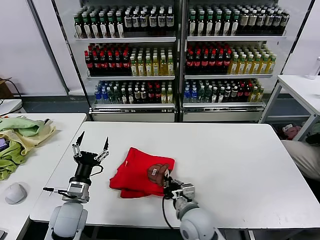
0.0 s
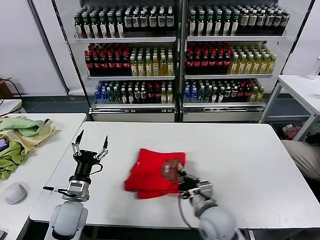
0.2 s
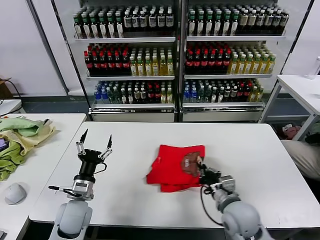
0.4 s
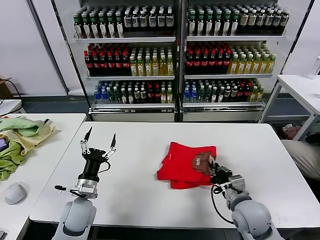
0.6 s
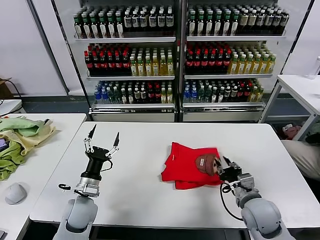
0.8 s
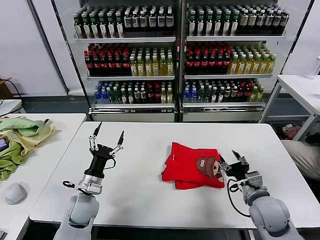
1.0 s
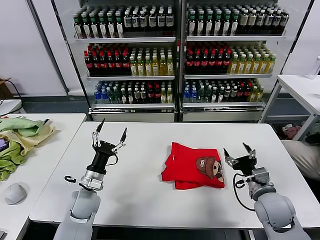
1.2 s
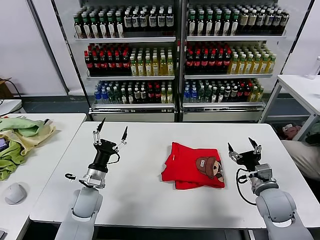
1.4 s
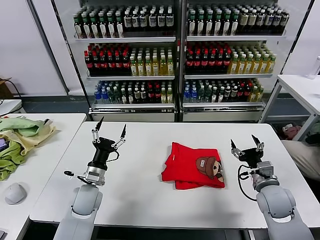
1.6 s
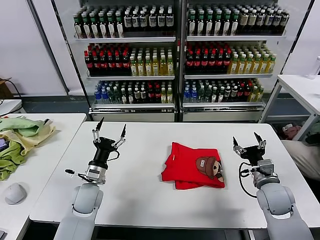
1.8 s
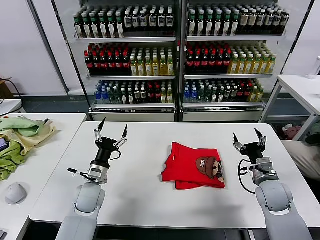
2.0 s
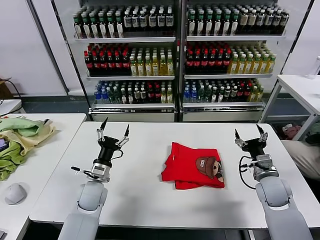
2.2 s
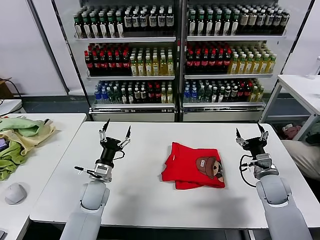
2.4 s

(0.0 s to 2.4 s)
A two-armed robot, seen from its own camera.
Task of the whole recording: fold and organize the clothes.
0.0 s - 1.2 s: The left gripper shifts some 5 cm forward. The right gripper shifts about 20 cm to the right, and opens.
1.2 s - 2.4 s: The right gripper shifts some 5 cm forward.

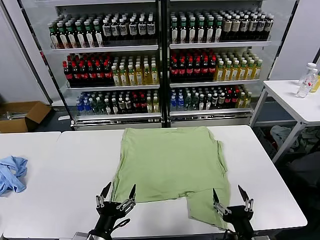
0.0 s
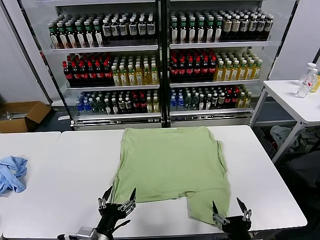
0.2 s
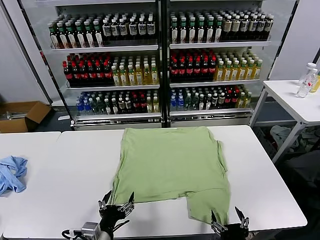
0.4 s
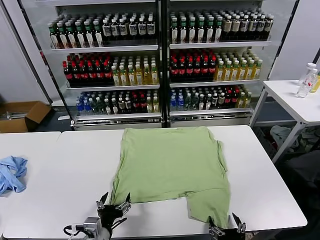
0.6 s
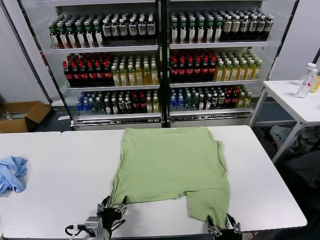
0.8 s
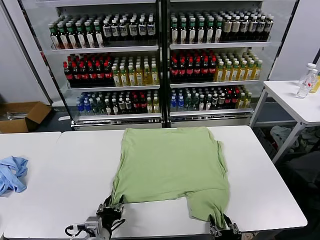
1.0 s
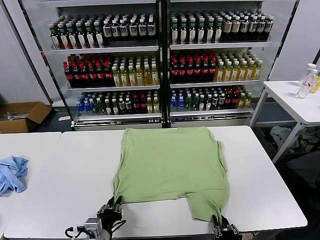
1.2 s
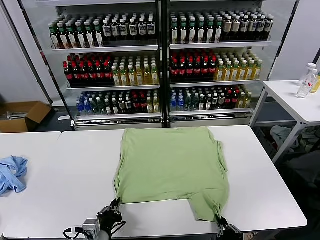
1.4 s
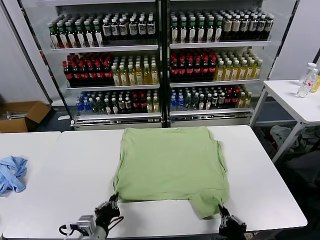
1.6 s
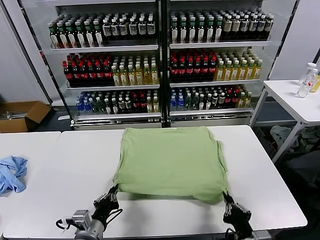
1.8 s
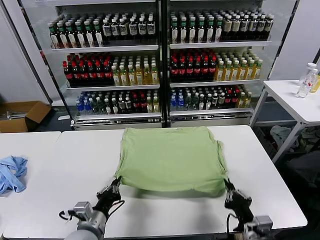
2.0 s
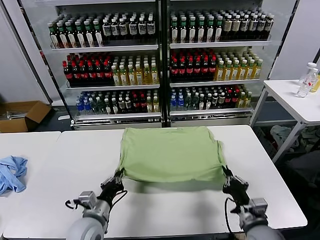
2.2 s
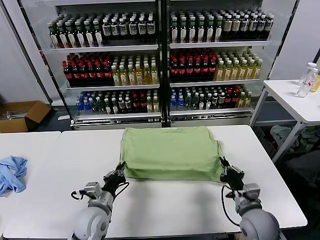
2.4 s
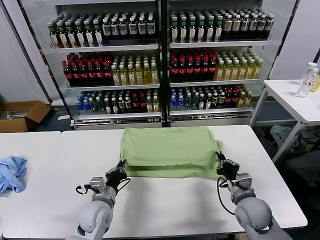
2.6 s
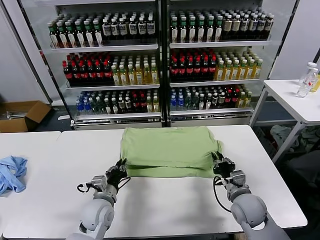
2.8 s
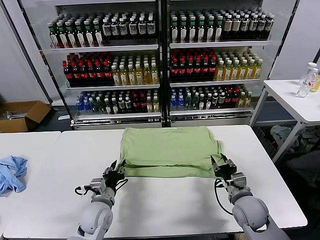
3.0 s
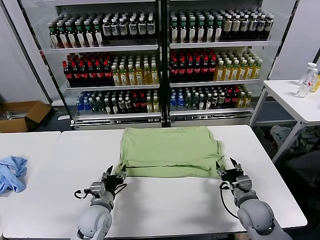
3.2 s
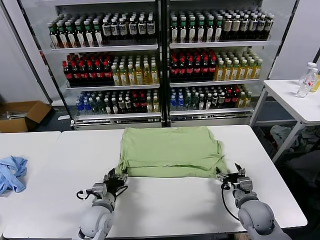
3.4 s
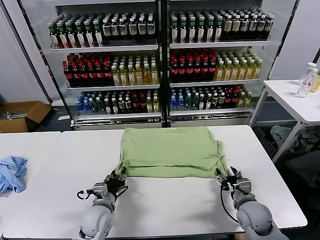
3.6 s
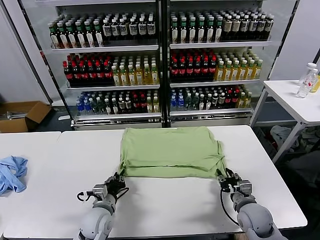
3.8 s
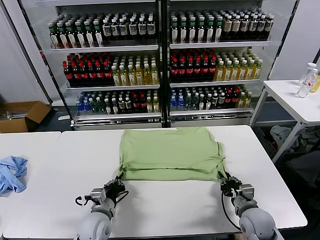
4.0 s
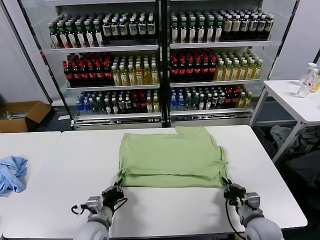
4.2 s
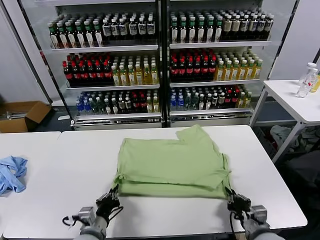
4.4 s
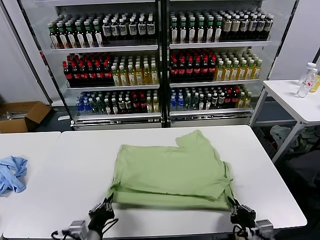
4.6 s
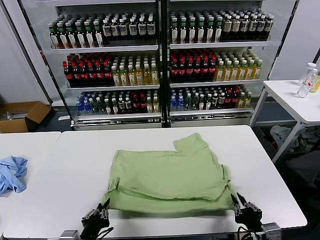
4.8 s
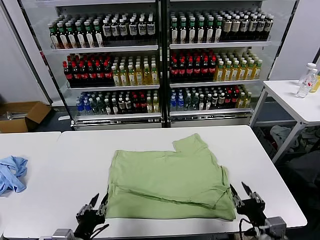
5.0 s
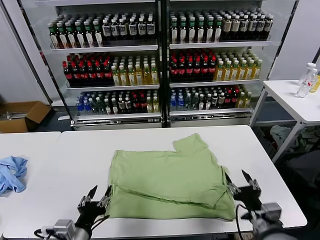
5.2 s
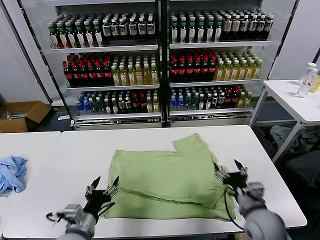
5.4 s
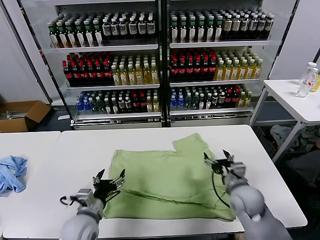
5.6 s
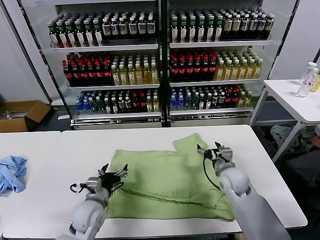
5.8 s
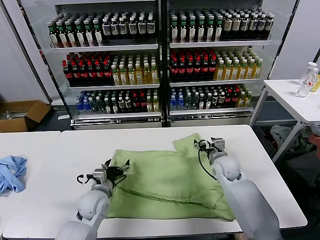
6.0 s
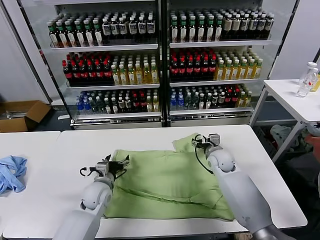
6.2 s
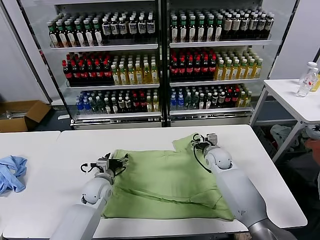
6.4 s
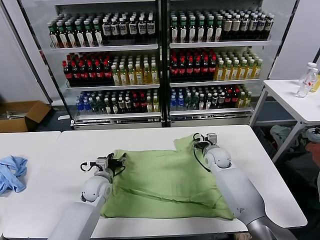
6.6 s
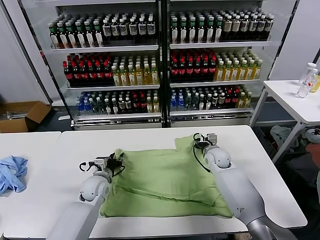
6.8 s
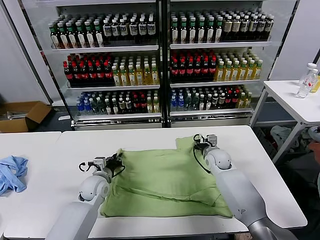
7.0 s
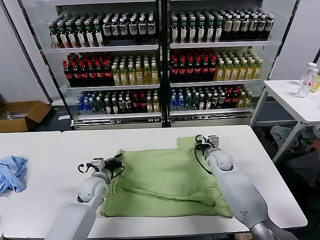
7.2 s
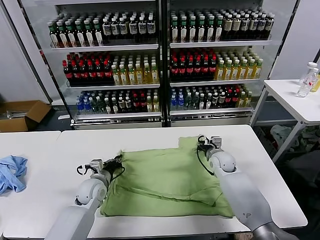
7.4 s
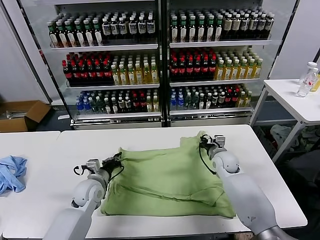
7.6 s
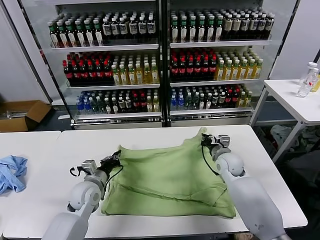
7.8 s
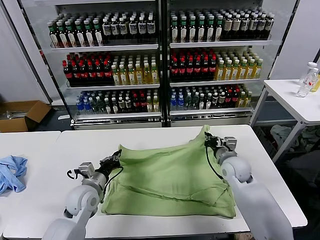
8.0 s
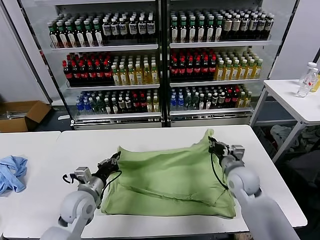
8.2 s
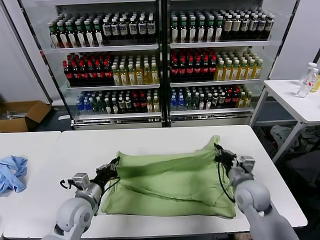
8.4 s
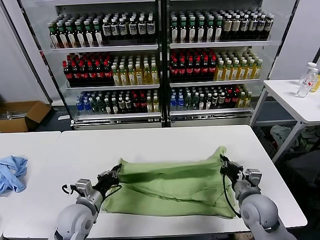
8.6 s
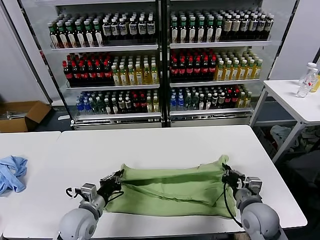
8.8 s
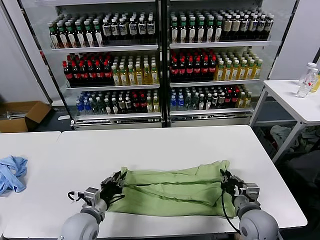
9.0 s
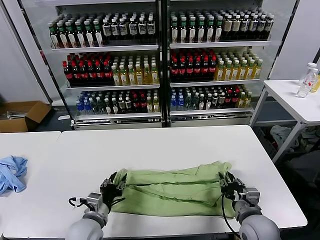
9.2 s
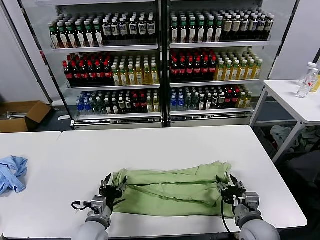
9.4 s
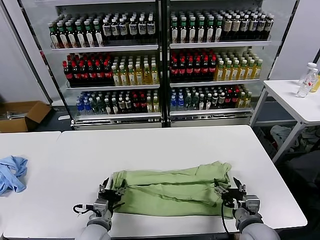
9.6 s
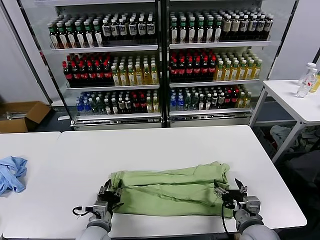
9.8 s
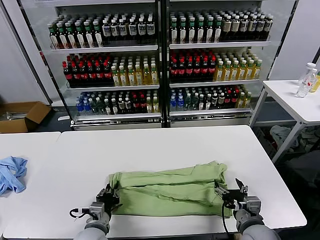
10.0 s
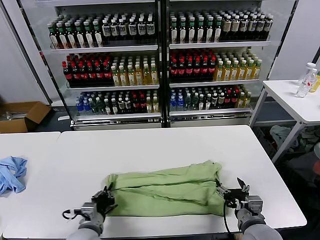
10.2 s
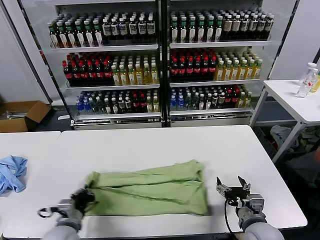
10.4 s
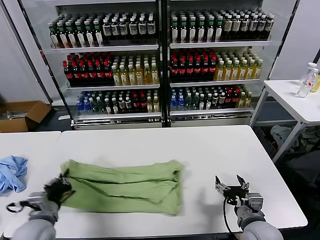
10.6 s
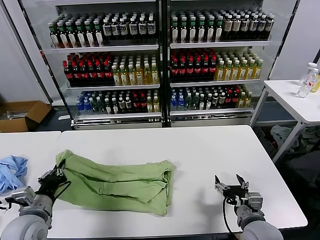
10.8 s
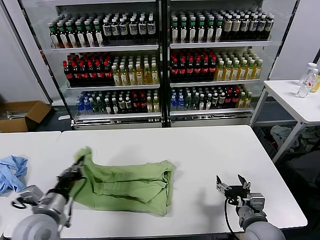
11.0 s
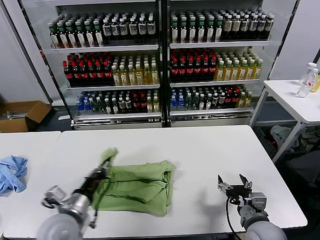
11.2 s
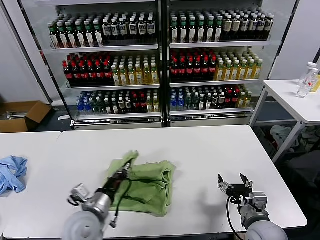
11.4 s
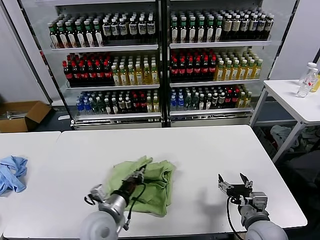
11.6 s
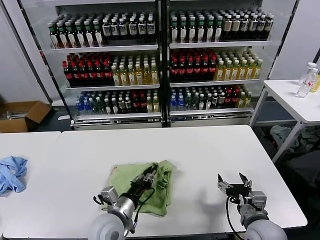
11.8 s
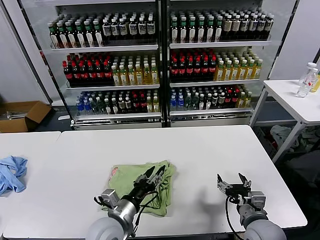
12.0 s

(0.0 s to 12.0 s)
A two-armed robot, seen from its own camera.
Task of the whole recording: fold and organize the clothes.
Step, 0.0 s - 1.4 s: use both grippers simultaneously to clamp the lower edge of the clothing fabric.
Step, 1.6 s - 2.8 s: use both grippers to drag the lower edge of the fabric forward and fold it over the upper edge.
Step, 3.0 s - 5.0 s: Drag the clothes downward with both gripper.
Step, 5.2 s - 7.2 s: use both grippers simultaneously to clamp the upper edge of the clothing fabric.
Step, 7.4 s - 9.2 s: use both grippers to drag the upper edge of the fabric backward and fold it over the lower edge.
Step, 9.4 s - 10.2 s: use the left gripper to clamp the left edge of the fabric.
Step, 10.4 s - 11.8 s: use the left gripper to drag the left edge of the fabric to the left and folds it over the right edge.
1.6 s - 3.0 s: Both grippers travel together forward, about 15 cm. The left gripper opens up. The right gripper opens its fingers.
3.0 s - 4.4 s: Both grippers travel together backward, approximately 10 cm. The left gripper closes its fingers. The right gripper closes up.
4.4 s - 6.0 s: The left gripper heads forward, covering roughly 15 cm, and opens. Meanwhile the right gripper goes approximately 30 cm forward, and opens its fingers.
6.0 s - 7.6 s: The left gripper closes up. Meanwhile the right gripper closes its fingers.
7.6 s - 9.0 s: The right gripper travels backward by some 25 cm. The left gripper travels backward by some 10 cm.
9.0 s - 10.4 s: The left gripper shifts by roughly 5 cm, and opens, then closes once more. Meanwhile the right gripper opens.
10.4 s - 12.0 s: The left gripper heads to the right and upward, covering approximately 15 cm, and opens its fingers.

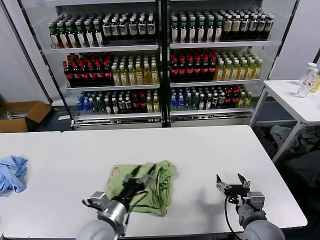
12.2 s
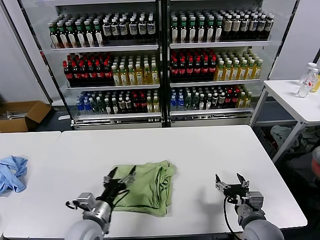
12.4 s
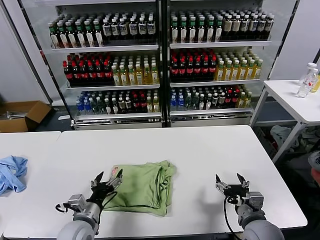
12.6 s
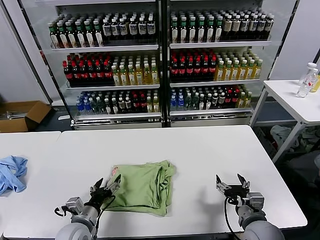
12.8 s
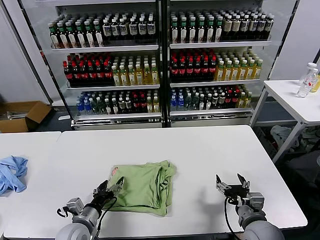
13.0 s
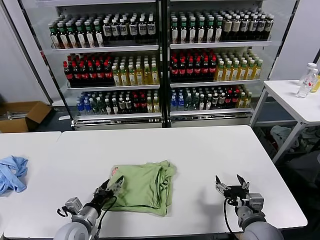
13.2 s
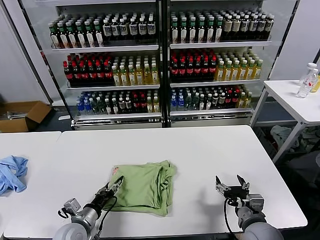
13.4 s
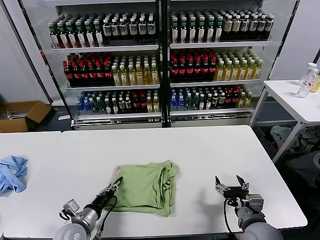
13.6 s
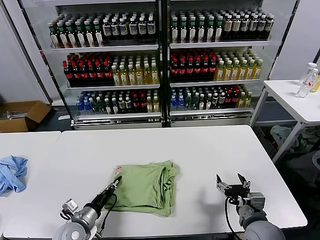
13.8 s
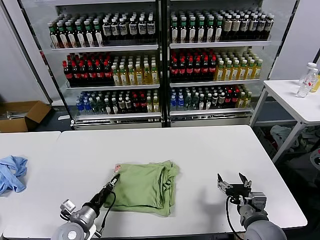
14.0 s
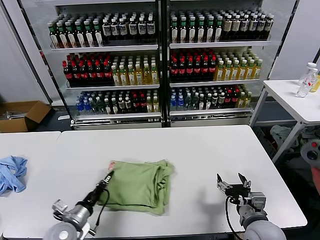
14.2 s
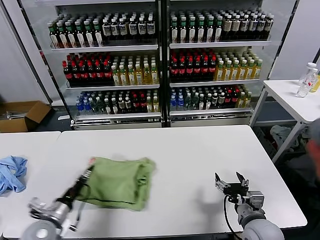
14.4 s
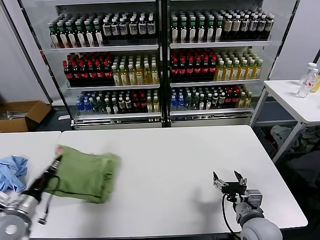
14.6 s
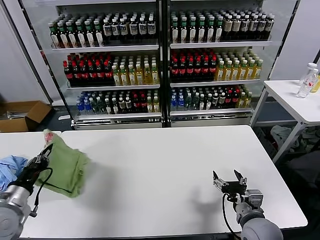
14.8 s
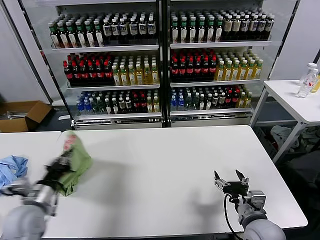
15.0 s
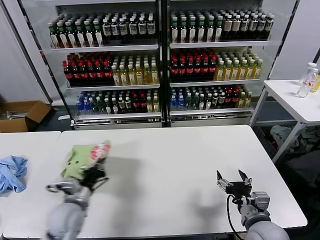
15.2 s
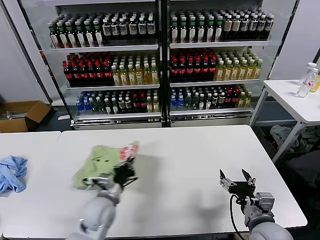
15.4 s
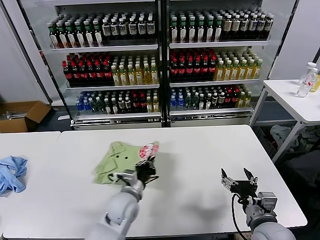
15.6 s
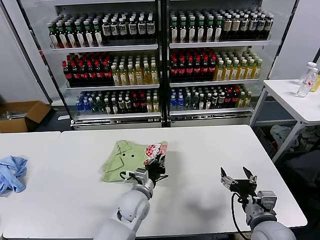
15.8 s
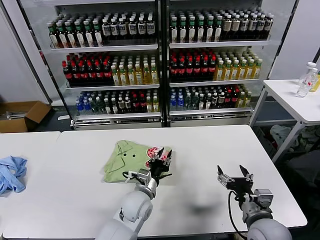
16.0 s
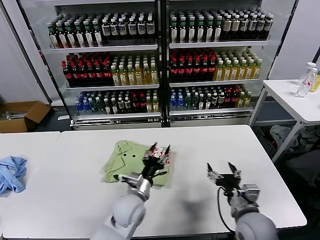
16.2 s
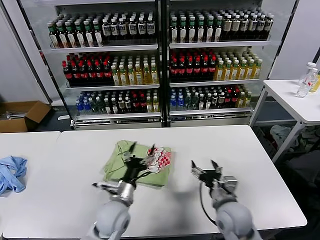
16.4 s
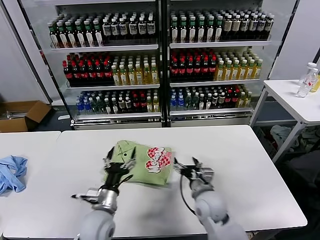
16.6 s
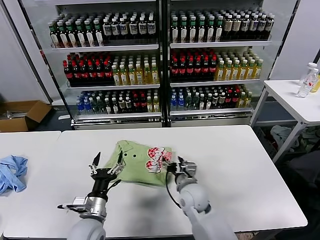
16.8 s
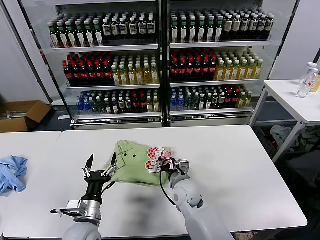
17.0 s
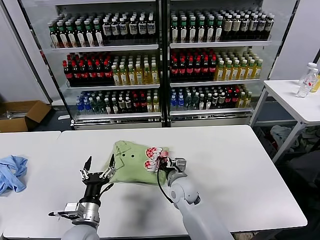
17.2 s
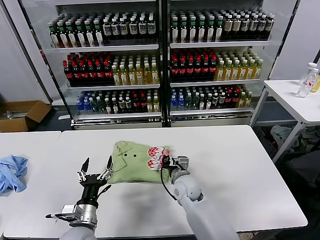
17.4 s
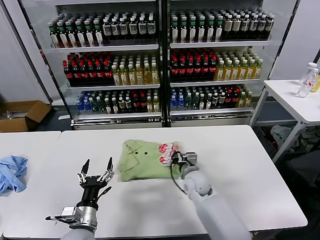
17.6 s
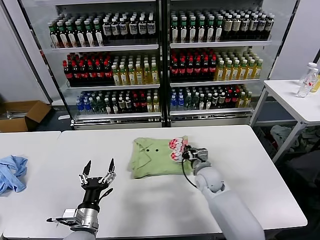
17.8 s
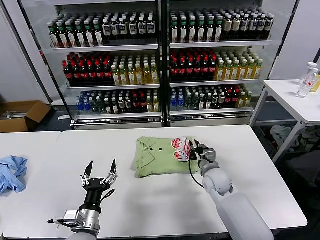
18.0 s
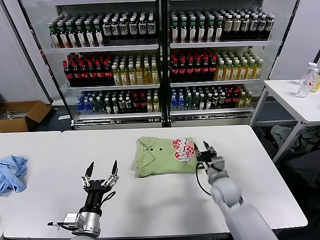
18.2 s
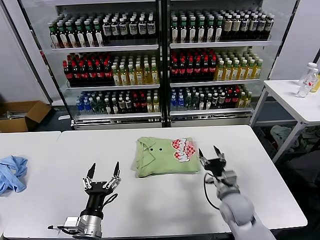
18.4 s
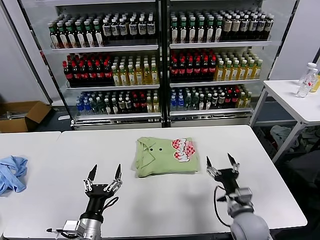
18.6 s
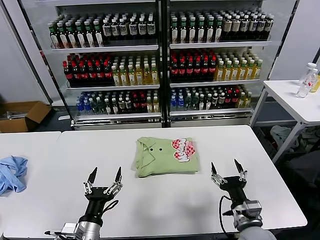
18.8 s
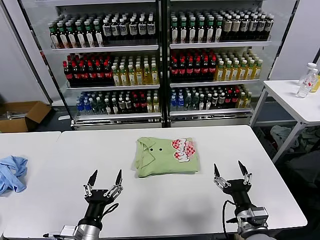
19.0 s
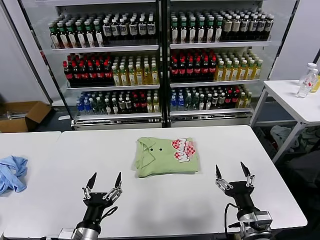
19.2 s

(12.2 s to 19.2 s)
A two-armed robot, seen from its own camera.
Task of the whole recording: fold and organize the clothes.
Step, 12.2 s - 16.0 s: Flip the folded clothes over with left gripper.
Step, 16.2 s - 18.0 s: Drag the clothes to the center of the table.
12.2 s - 13.6 s: The left gripper moves to the left and downward, approximately 15 cm.
13.6 s - 15.0 s: The left gripper goes some 15 cm upward and to the left, and closes up.
15.0 s - 16.4 s: The left gripper moves to the right, approximately 25 cm, and opens up. Meanwhile the right gripper is displaced to the left by some 5 cm.
16.4 s - 17.8 s: The right gripper heads forward, covering some 15 cm, and closes its fingers; the left gripper travels to the left and backward by about 15 cm.
17.8 s - 19.2 s: The right gripper travels backward and to the right by approximately 25 cm, and opens; the left gripper heads backward, covering roughly 5 cm.
